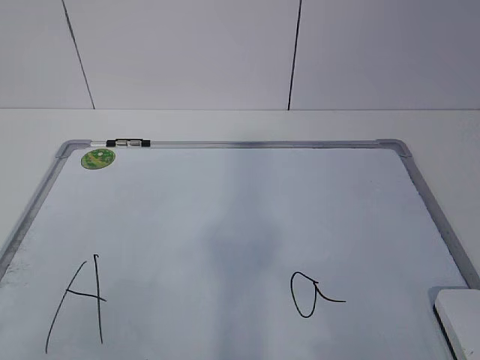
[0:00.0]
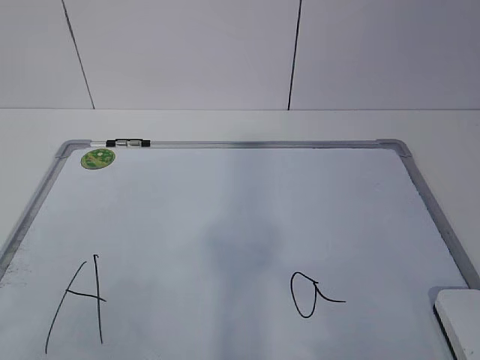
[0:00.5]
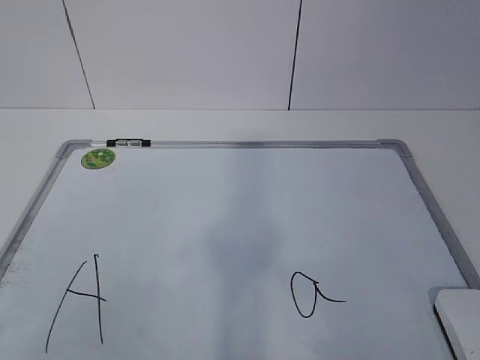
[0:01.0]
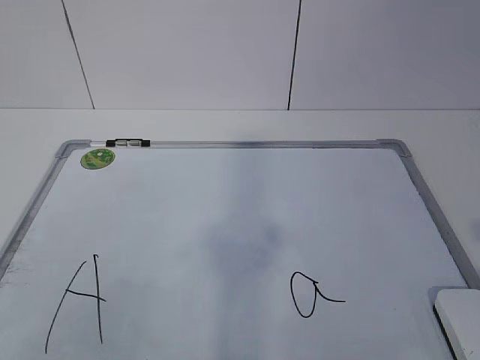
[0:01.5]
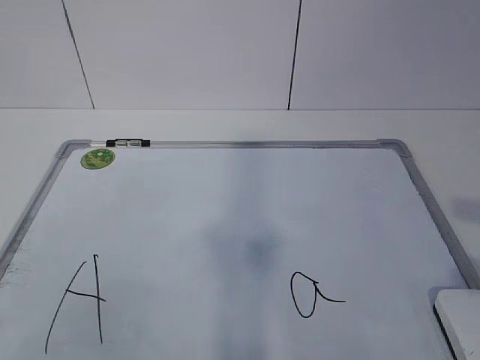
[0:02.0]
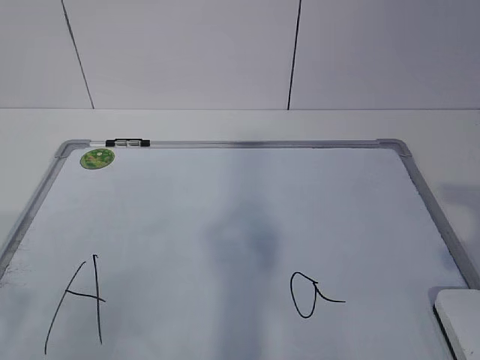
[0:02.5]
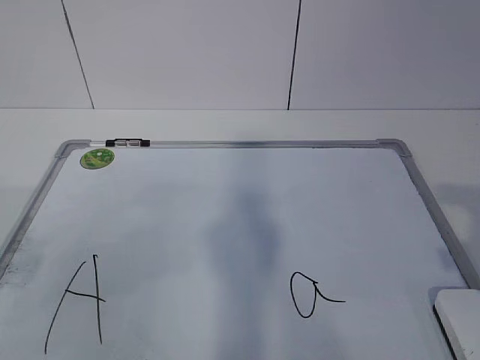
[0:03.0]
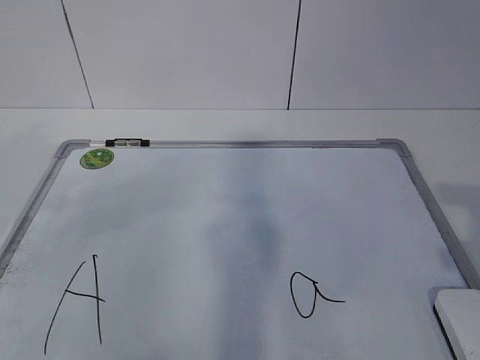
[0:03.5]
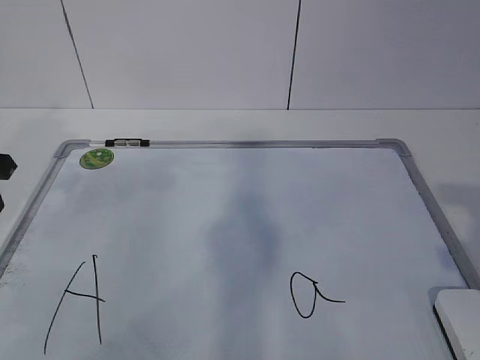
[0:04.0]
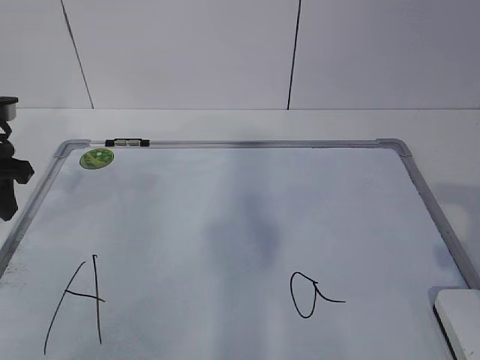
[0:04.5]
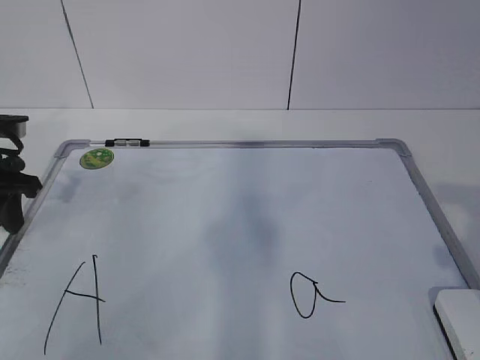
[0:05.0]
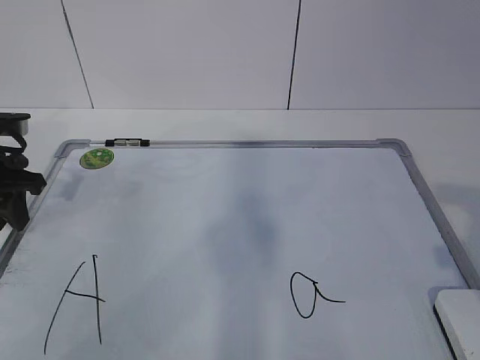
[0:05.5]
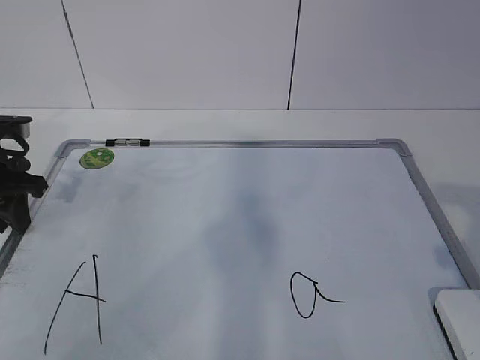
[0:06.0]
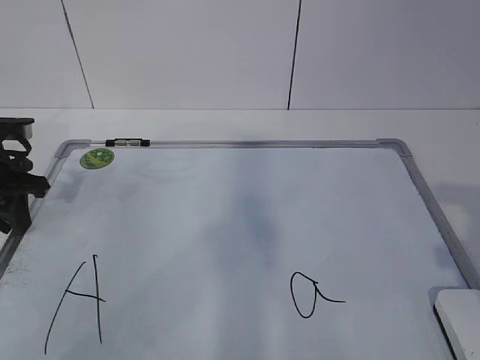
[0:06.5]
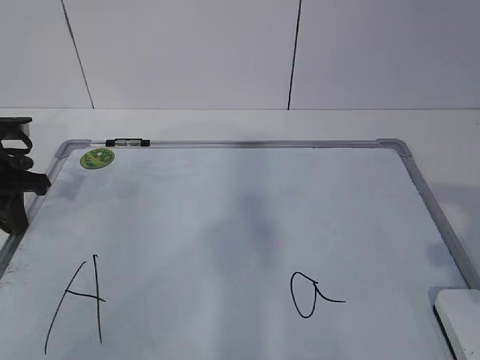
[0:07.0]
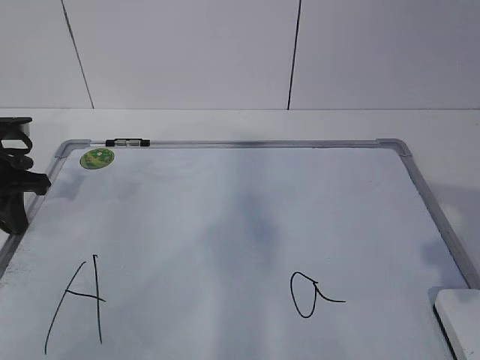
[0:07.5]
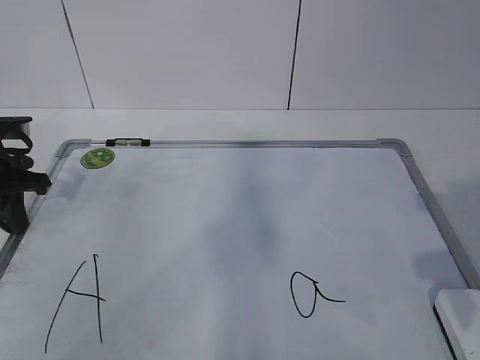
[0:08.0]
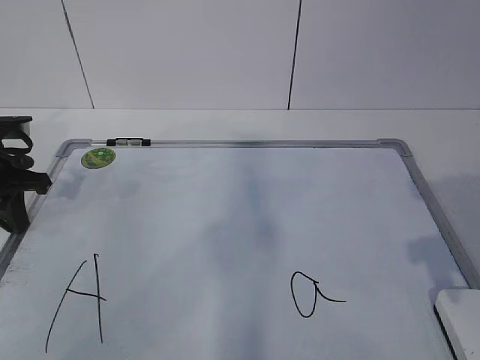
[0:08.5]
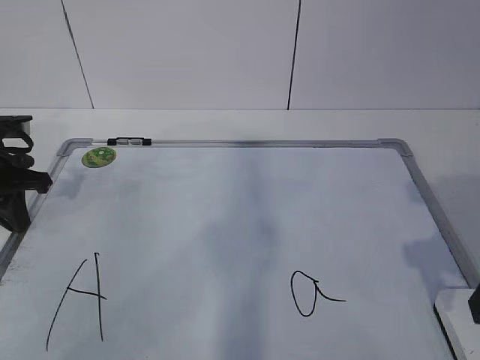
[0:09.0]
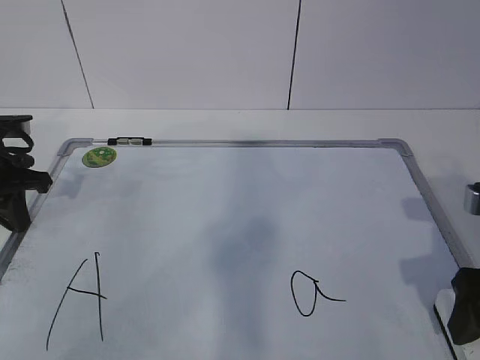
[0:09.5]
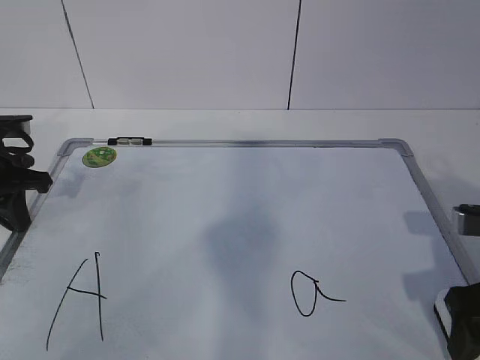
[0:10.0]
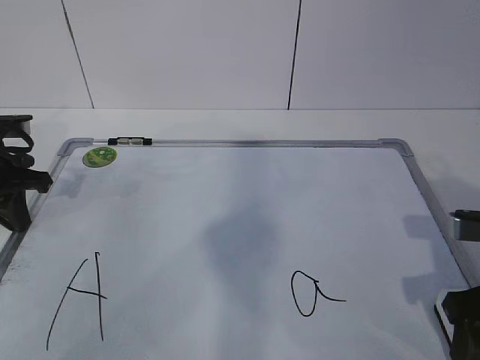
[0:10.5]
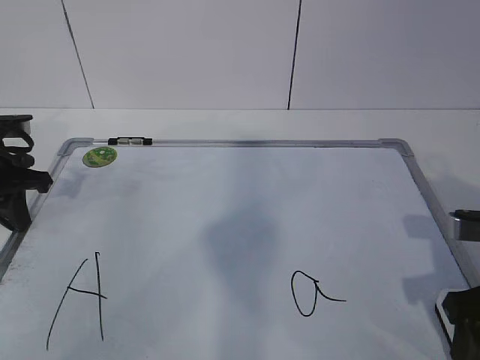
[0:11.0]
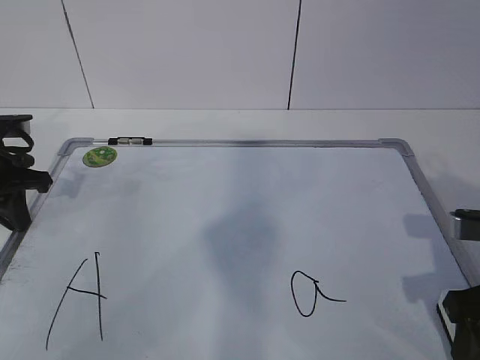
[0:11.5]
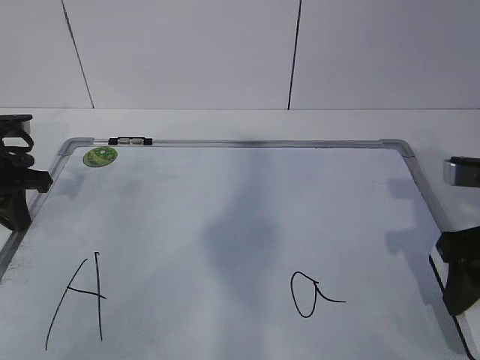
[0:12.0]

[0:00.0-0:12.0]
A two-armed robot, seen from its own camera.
Task of the whole recording: pick up the eraser on the blackboard and erase the letter "a".
Step, 0:00.0 to 0:05.5: Hold the drawing board steady with your left hand.
0:02.0 to 0:04.0: The left gripper heads forward, covering some 30 cm.
0:04.0 to 0:06.0: The left gripper travels downward by some 5 cm.
0:08.0 to 0:10.0: The right gripper moves downward and forward, approximately 10 cm, and opens up.
0:10.0 to 0:12.0: The right gripper closes.

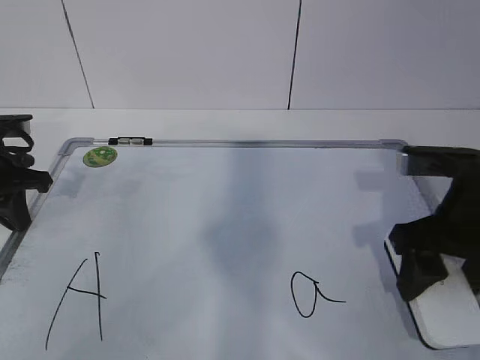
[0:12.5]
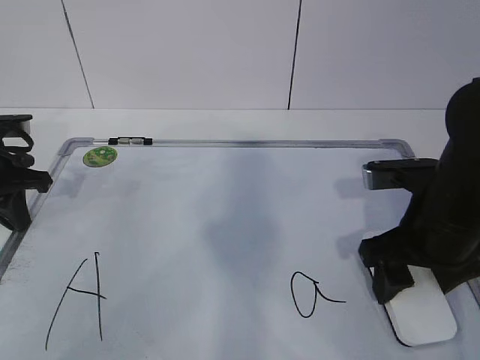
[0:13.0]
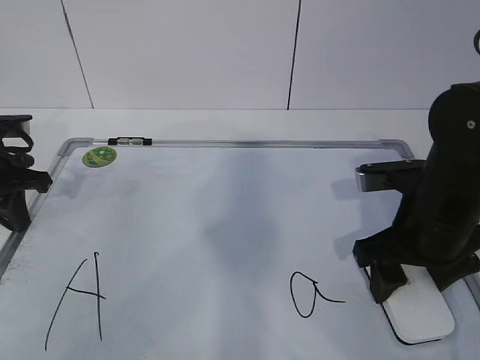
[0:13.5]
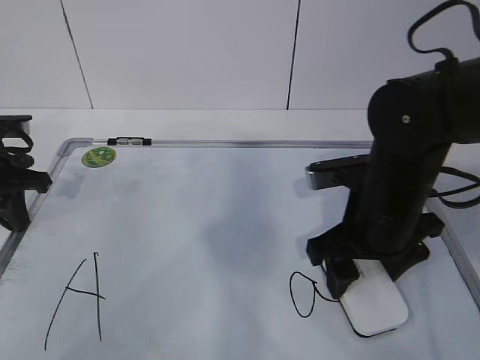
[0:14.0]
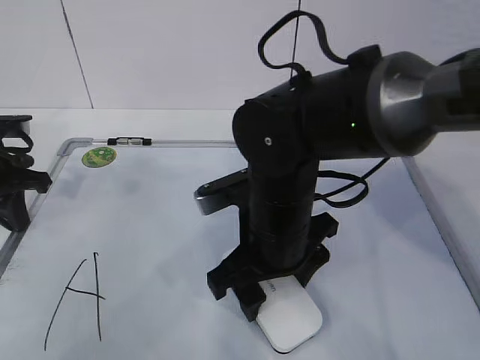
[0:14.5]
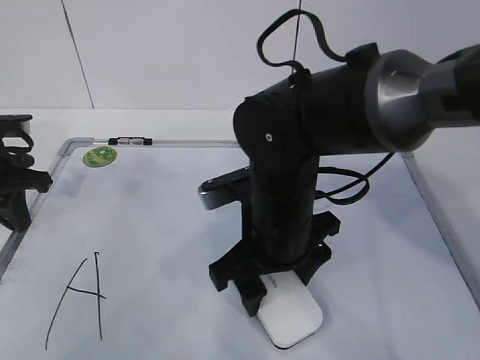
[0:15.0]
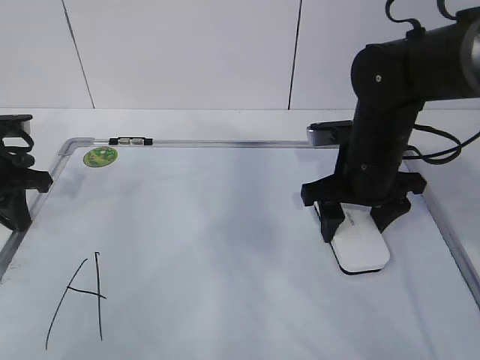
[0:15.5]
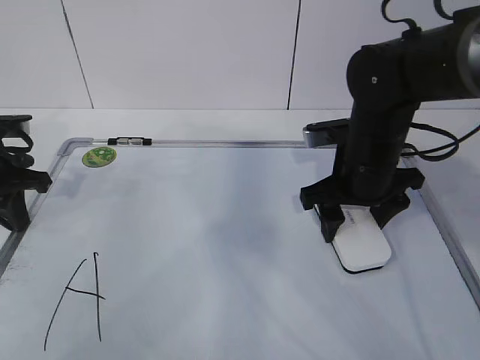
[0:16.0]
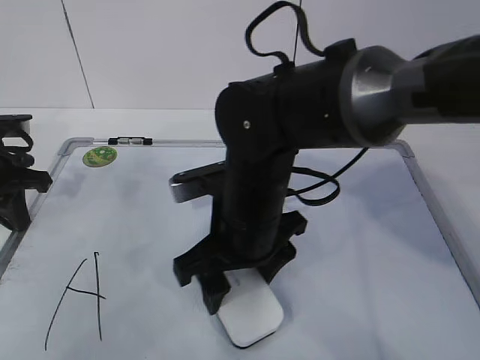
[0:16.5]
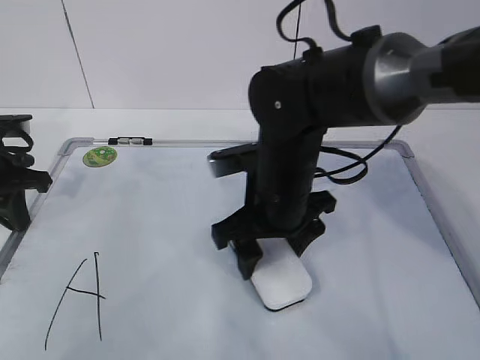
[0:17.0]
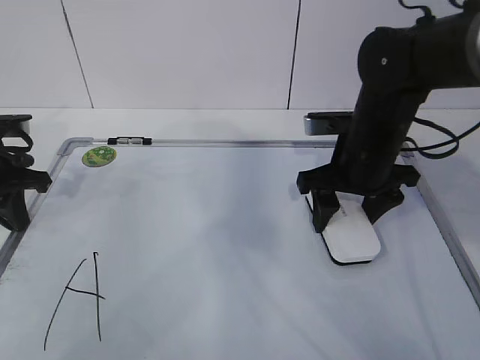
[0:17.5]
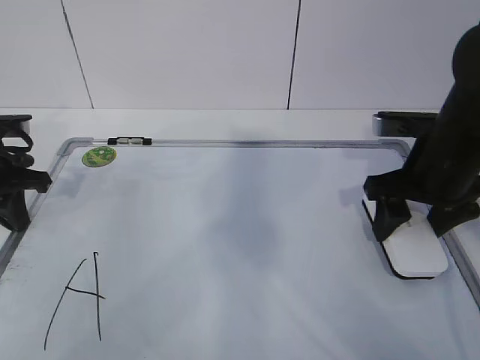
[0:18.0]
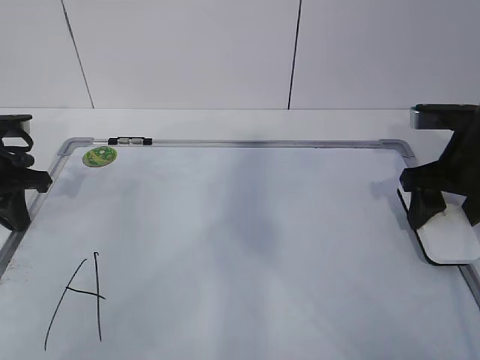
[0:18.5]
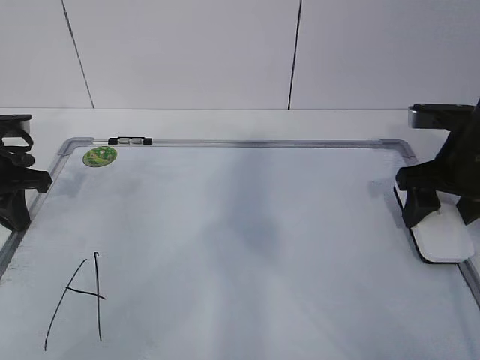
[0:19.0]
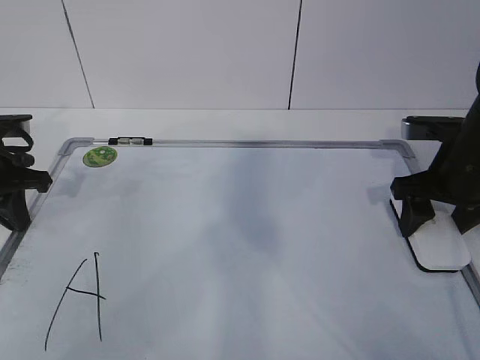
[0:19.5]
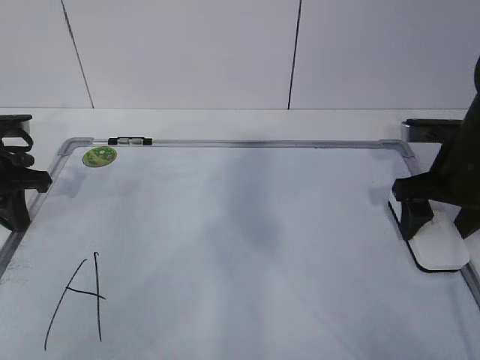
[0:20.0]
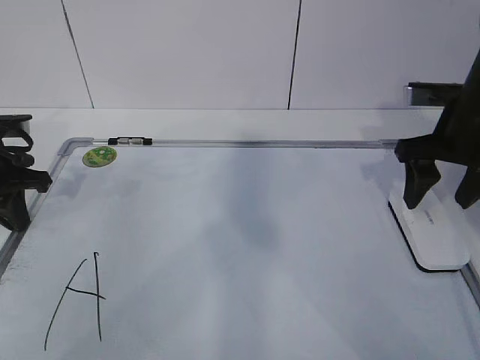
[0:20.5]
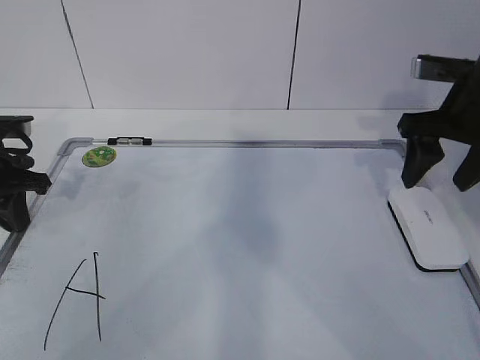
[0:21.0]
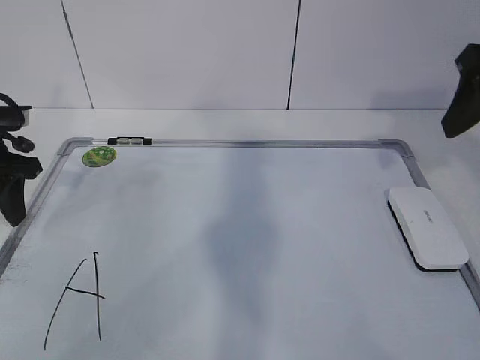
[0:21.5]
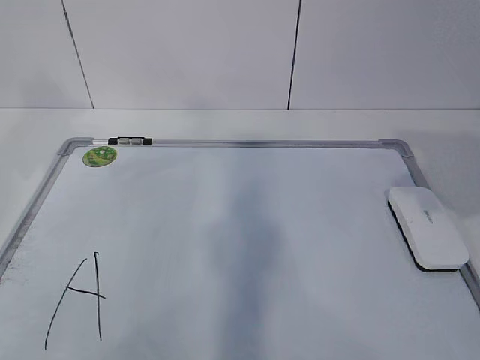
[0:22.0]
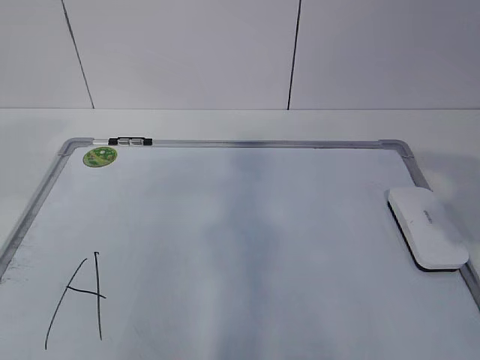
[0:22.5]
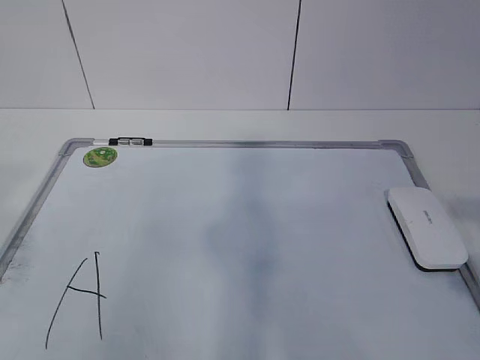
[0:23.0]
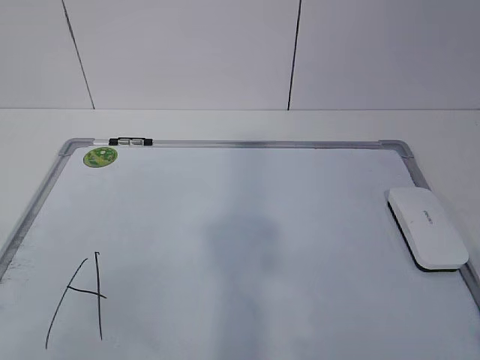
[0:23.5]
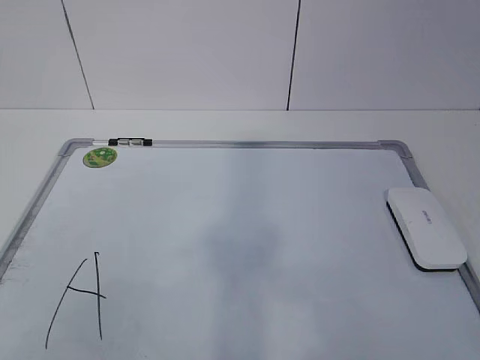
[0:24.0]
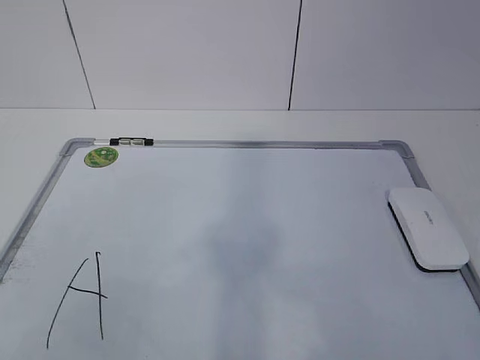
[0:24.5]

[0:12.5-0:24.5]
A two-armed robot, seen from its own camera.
Task of the whole recording: pick up the eraser on the blackboard and erase the letter "a".
Step, 0:14.5 to 0:16.5: Put down the eraser with your right hand.
0:12.5 to 0:14.5: The right gripper heads to the left, covering approximately 20 cm.
0:14.5 to 0:16.5: The right gripper reaches approximately 10 cm to the right, then returns.
0:16.5 to 0:18.5: The right gripper is displaced to the right by about 25 cm.
0:18.5 to 0:20.5: The right gripper opens.
0:20.5 to 0:22.5: The right gripper moves backward and upward, approximately 25 cm. Meanwhile the left gripper is displaced upward and backward by about 25 cm, and opens.
0:22.5 to 0:24.5: The left gripper moves backward, about 20 cm. Meanwhile the right gripper is displaced backward and downward by roughly 15 cm.

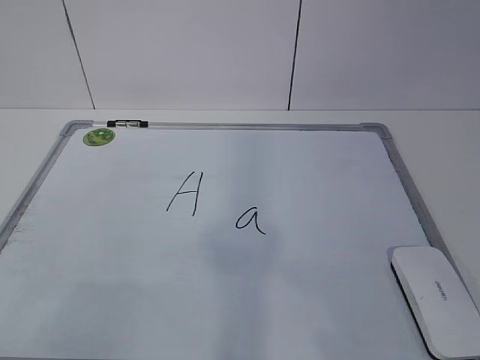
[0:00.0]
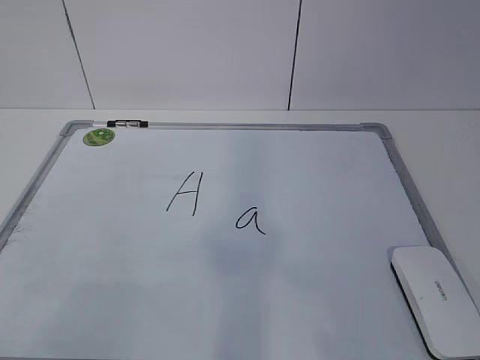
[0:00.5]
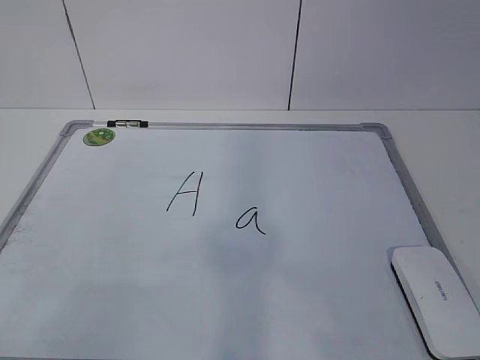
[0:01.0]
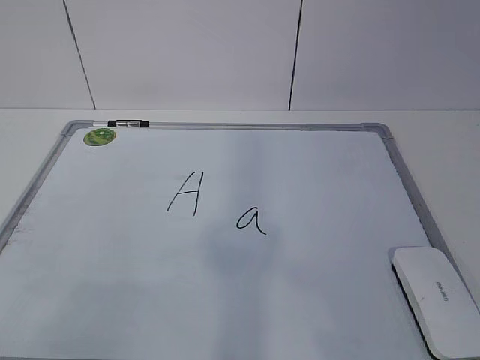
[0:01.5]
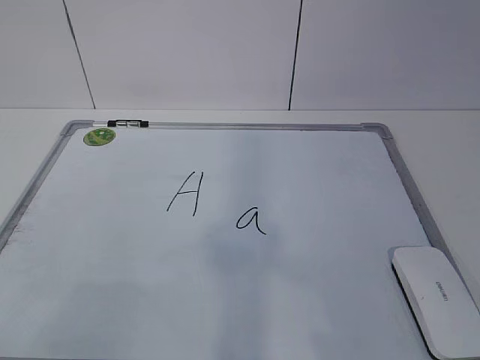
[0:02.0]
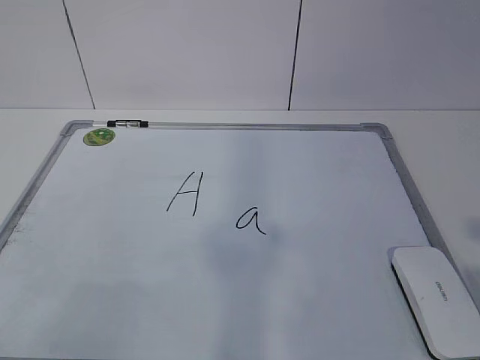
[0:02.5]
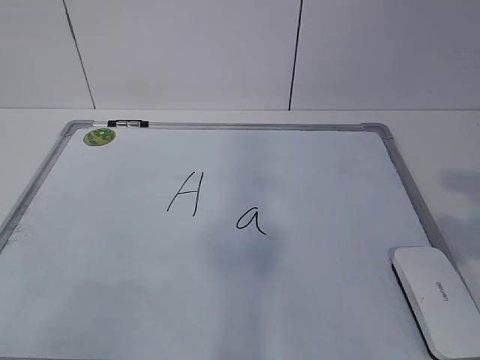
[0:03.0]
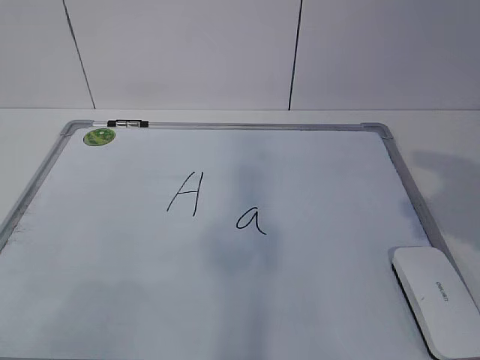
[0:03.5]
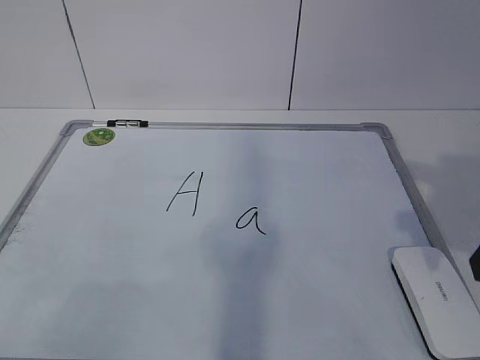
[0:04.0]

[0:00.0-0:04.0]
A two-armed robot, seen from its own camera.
Task of the whole recording: pick up the eraser on the blackboard and erase the letter "a".
0:02.0 to 0:04.0: The right gripper moves forward, about 20 cm, and opens its fingers.
